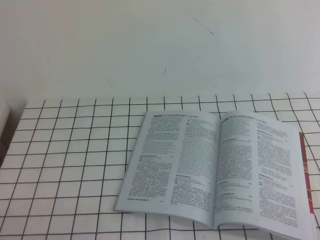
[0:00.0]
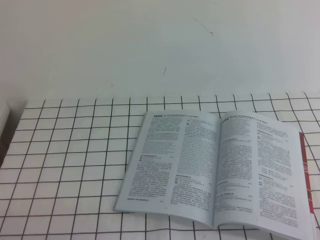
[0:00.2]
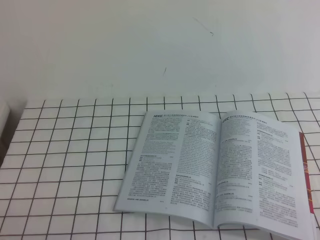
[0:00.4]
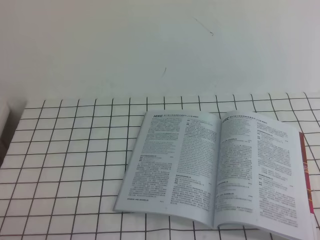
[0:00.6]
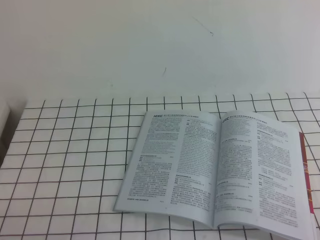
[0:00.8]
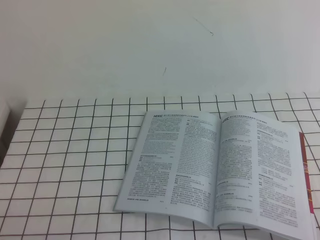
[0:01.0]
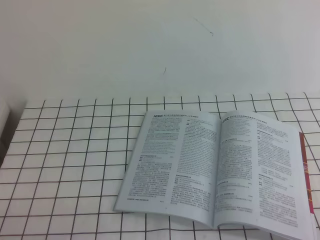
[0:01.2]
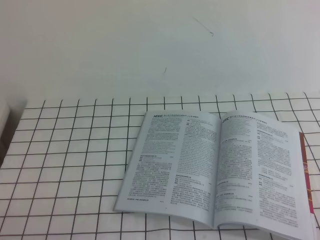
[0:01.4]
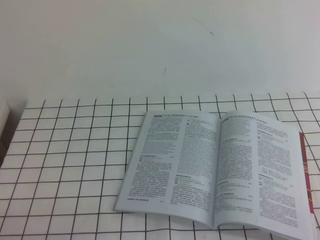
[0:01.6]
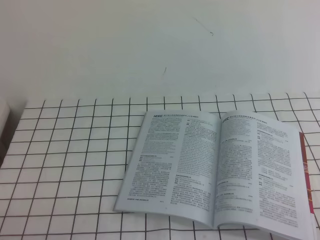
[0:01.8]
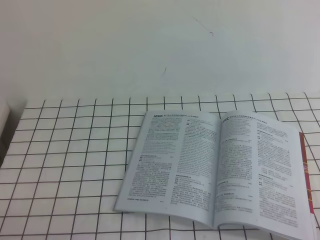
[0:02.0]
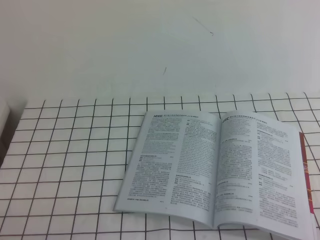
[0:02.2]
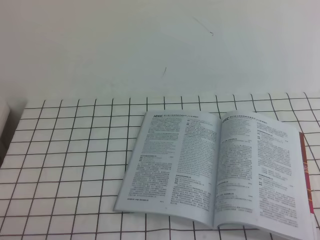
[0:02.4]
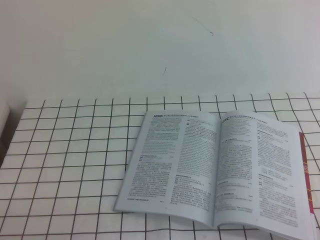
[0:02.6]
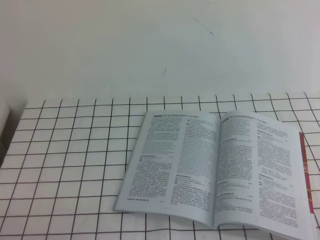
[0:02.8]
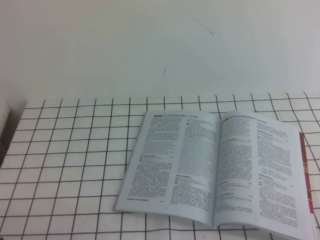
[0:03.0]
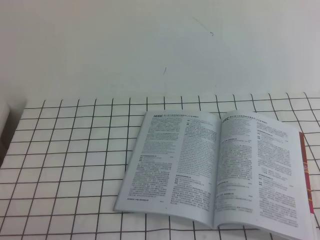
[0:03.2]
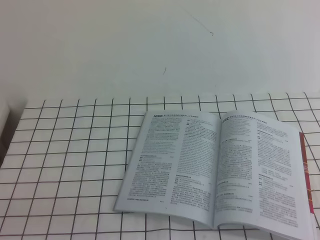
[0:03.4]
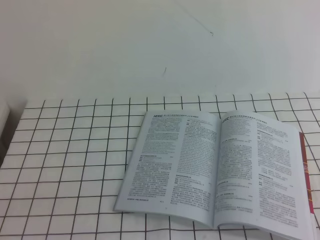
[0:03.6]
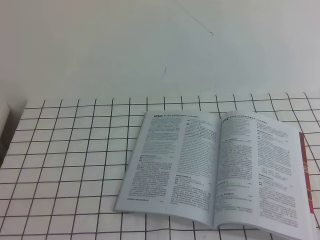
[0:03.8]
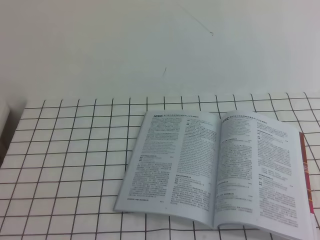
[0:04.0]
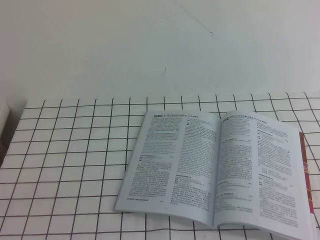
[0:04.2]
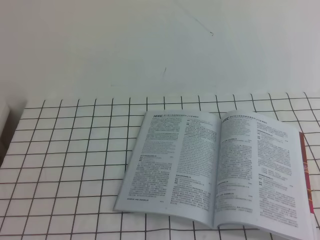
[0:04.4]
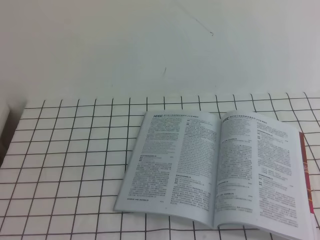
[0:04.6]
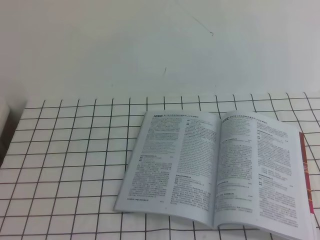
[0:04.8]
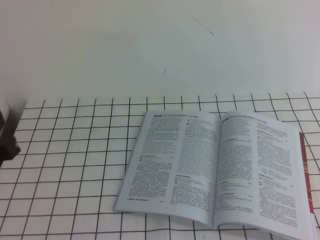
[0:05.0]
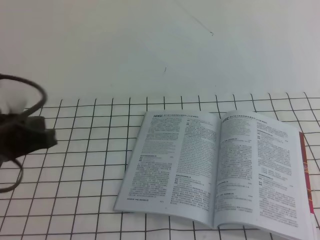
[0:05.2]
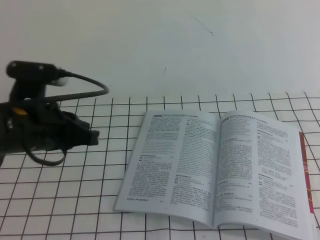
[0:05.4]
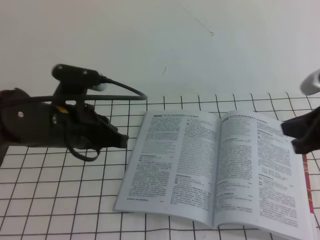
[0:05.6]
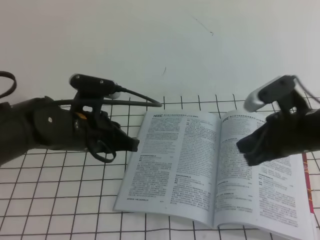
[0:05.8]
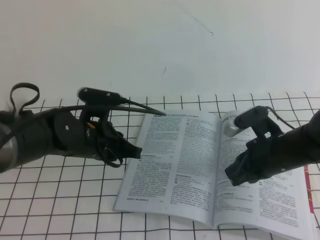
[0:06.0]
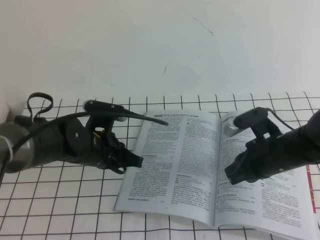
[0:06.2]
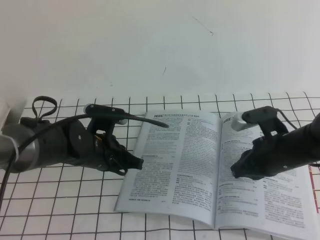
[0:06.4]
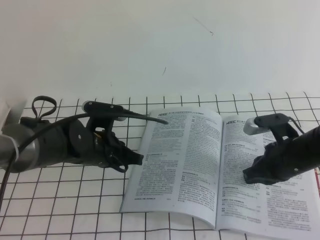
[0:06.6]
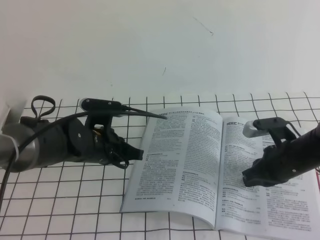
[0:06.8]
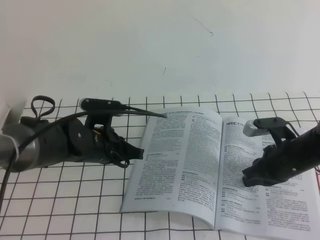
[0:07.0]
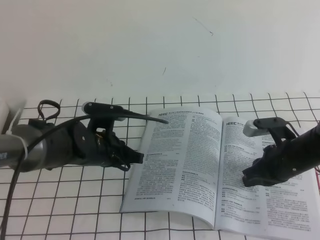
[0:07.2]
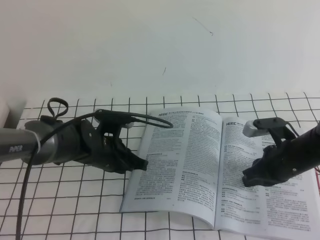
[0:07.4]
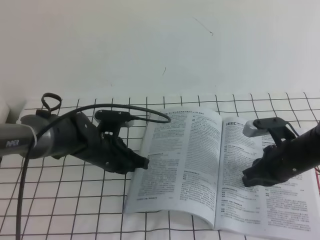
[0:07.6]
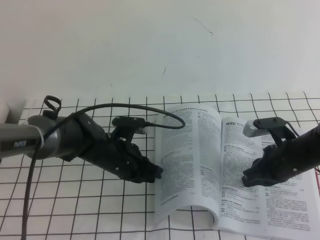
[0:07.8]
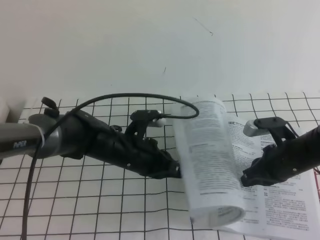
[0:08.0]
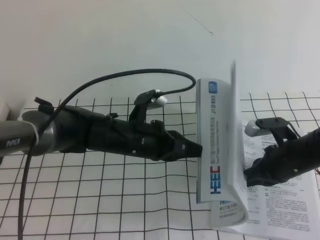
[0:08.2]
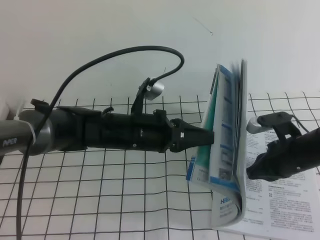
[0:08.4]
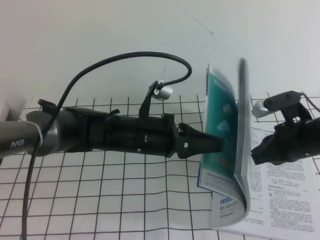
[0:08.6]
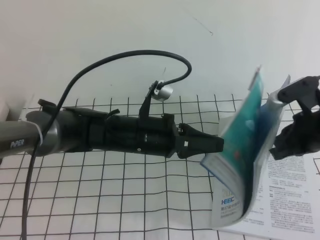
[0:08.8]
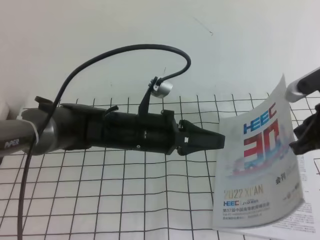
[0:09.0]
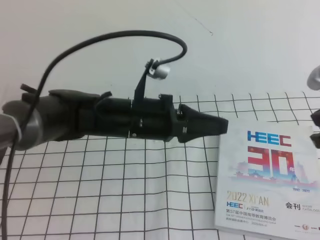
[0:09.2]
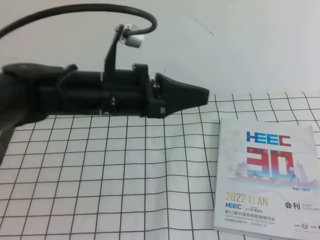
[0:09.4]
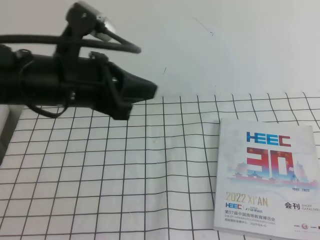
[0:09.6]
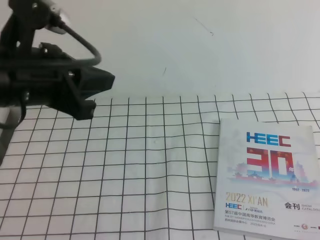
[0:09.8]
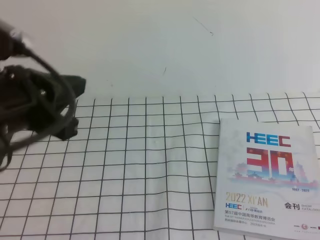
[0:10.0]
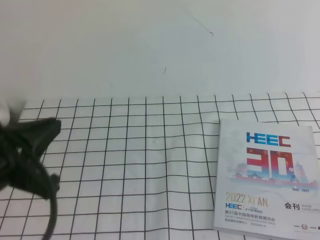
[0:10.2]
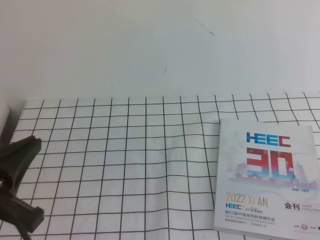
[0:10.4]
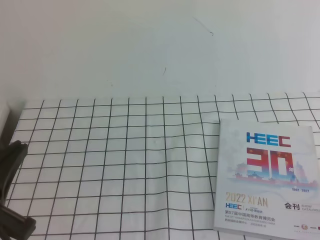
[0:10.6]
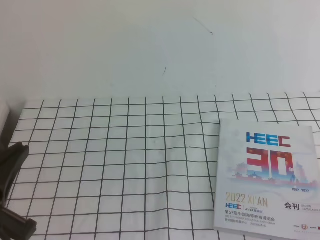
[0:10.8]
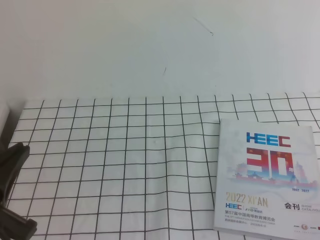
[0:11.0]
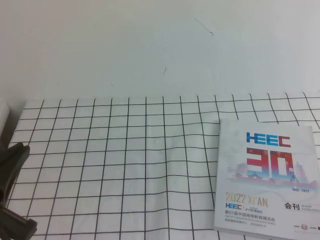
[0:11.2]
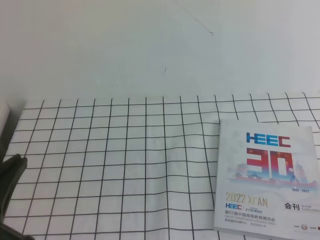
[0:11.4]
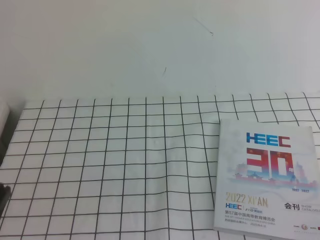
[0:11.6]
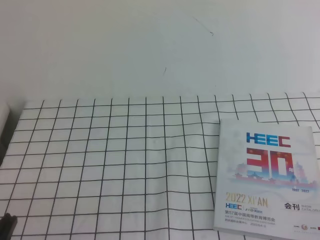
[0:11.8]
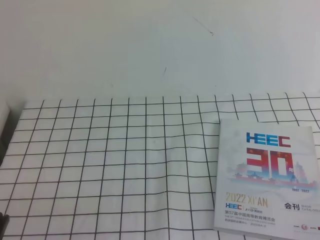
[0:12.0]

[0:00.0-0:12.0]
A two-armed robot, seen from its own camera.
Task of the whole recording: on the white tablecloth, hold the book with one hand and close it with the other.
0:00.0 to 0:03.0: Both grippers stay put.
0:04.4 to 0:06.0: The left gripper is displaced forward and to the right by some 30 cm, while the right gripper shifts roughly 30 cm forward and to the left.
0:06.0 to 0:07.6: The grippers both shift downward by roughly 10 cm.
0:07.6 to 0:09.0: The left gripper goes about 10 cm upward and to the right, while the right gripper goes roughly 15 cm upward.
0:09.0 to 0:10.4: The right gripper travels backward by approximately 25 cm, while the left gripper shifts approximately 25 cm backward, to the left and upward.
0:10.4 to 0:12.0: The left gripper shifts roughly 15 cm downward and backward.
